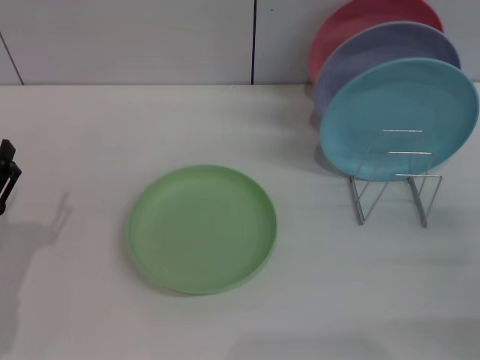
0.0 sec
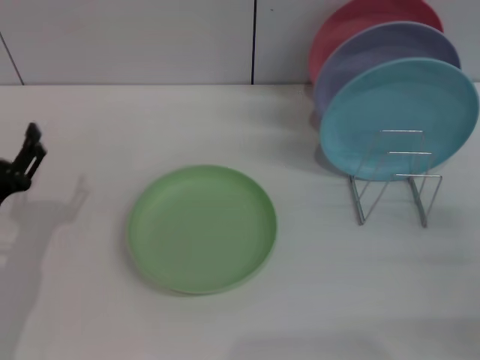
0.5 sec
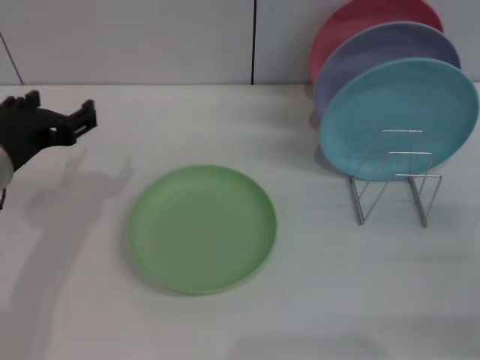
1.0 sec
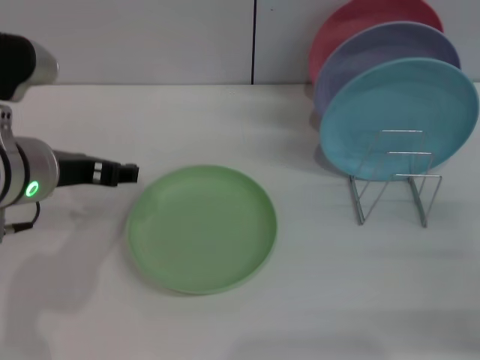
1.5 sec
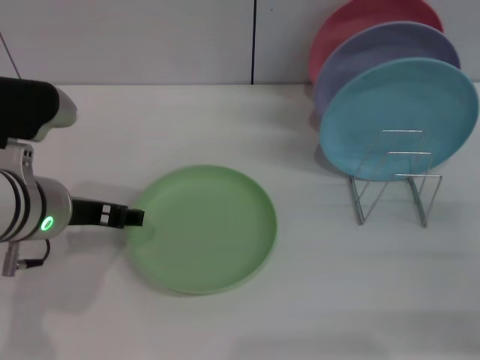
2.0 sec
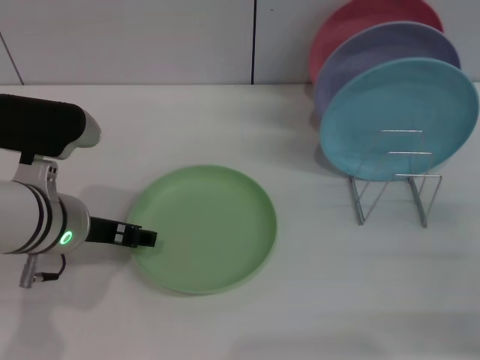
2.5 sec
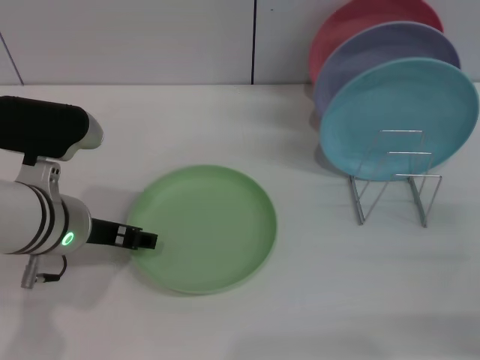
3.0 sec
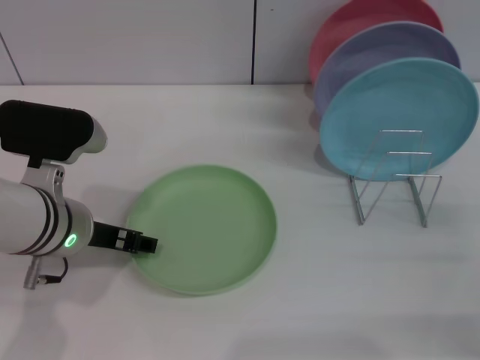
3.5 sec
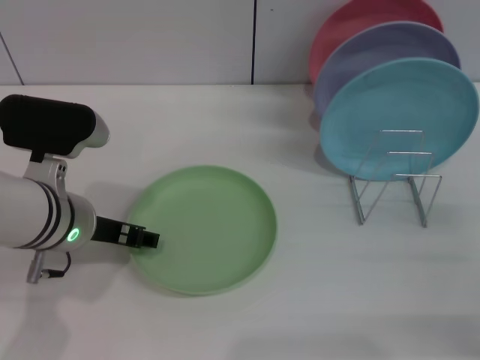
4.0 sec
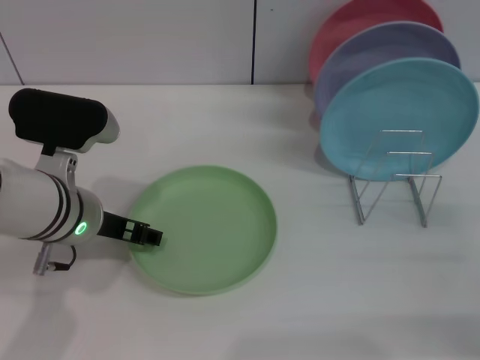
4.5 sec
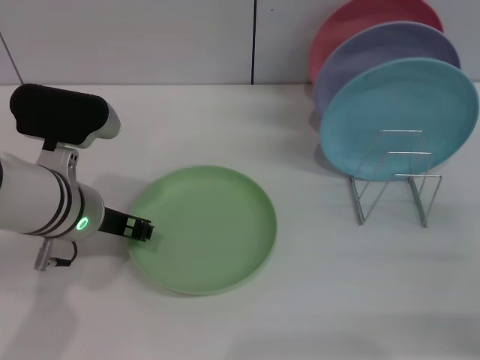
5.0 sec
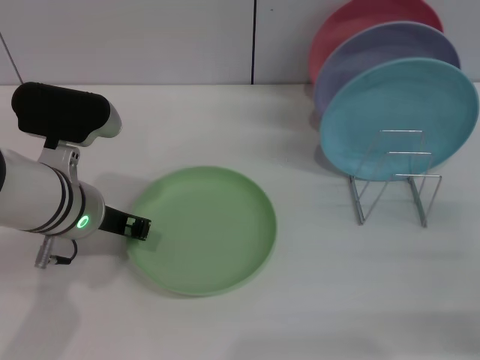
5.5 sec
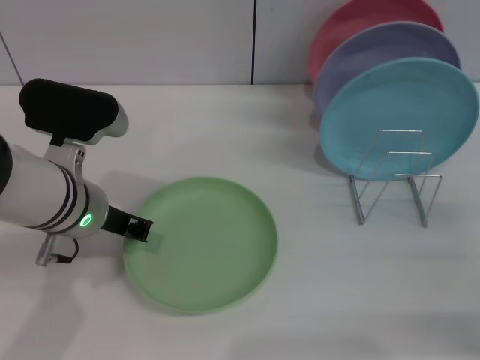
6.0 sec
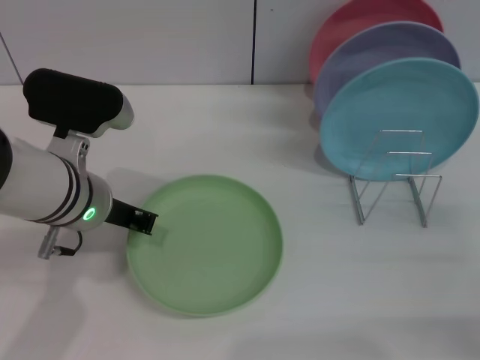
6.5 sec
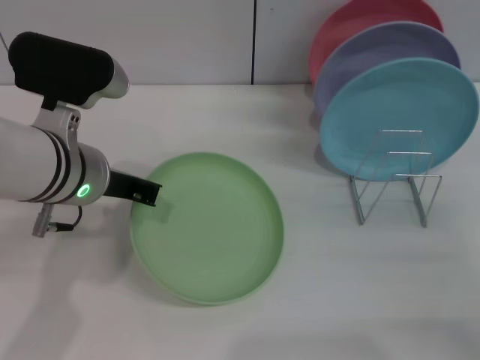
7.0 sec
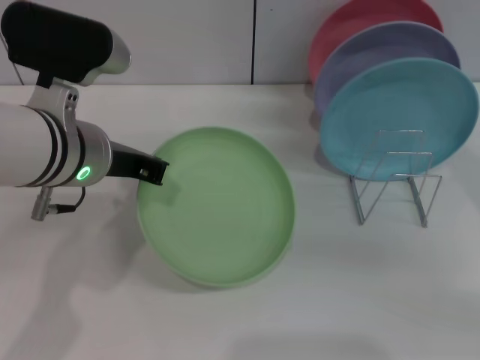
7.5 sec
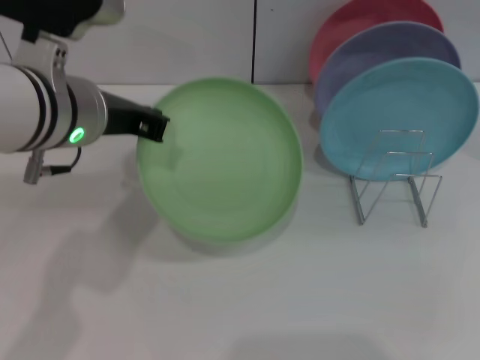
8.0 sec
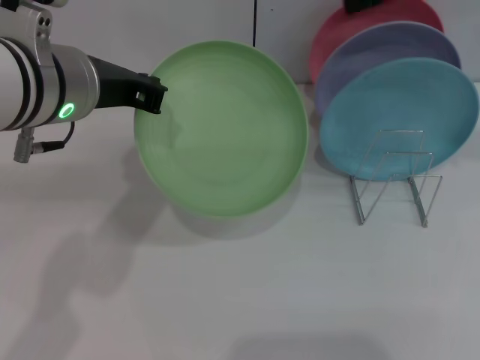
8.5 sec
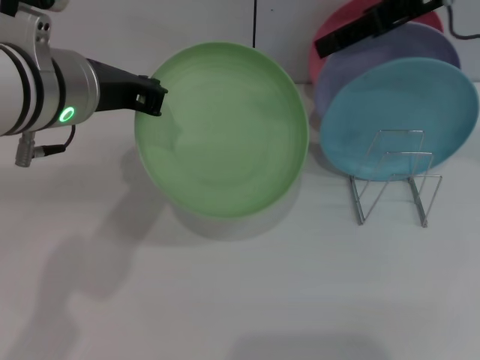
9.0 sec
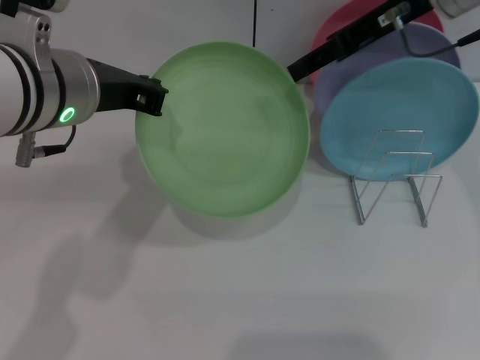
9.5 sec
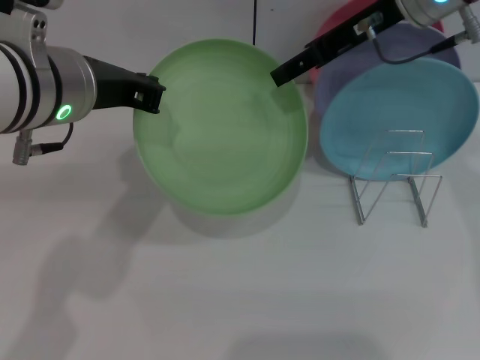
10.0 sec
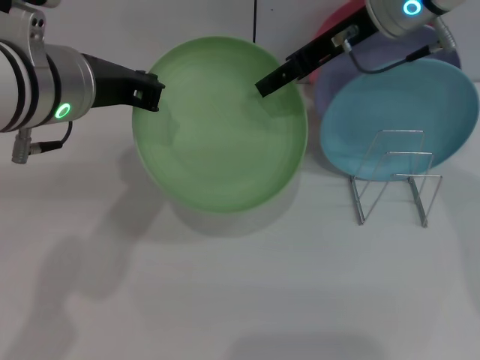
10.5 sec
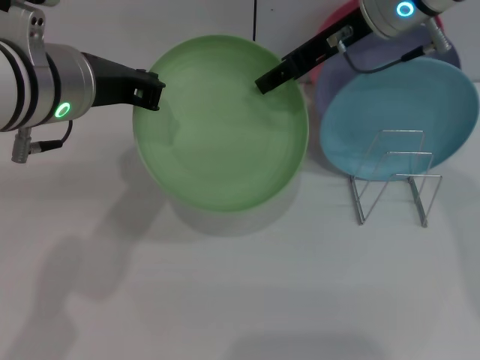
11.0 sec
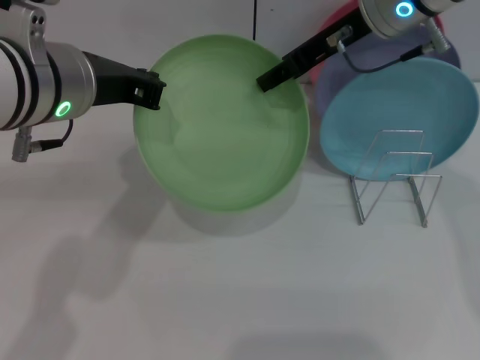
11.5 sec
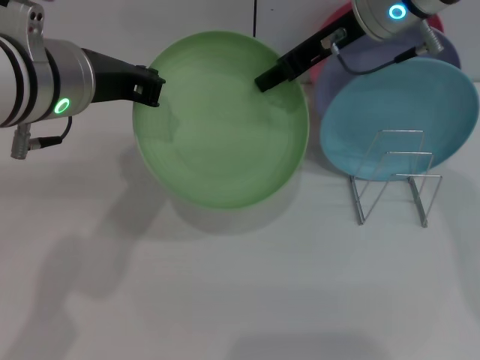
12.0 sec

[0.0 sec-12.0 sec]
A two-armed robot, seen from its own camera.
Task of the whole recording: Grip the plate with one hand, pass it to the other, then set it on the shelf.
Step, 0.0 sec to 7.5 sec: Pick up the plate with the left gripper.
0.0 sec to 2.0 sec: The left gripper heads upward, to the right and forward, covering roughly 15 cm.
2.0 sec to 4.0 sec: The grippers make only small movements.
4.0 sec to 6.0 sec: The left gripper closes.
6.0 sec to 8.0 sec: The left gripper moves upward, about 10 cm. The right gripper travels upward and forward by some 30 cm.
8.0 sec to 10.0 sec: The right gripper heads to the left and downward, covering approximately 15 cm.
10.0 sec to 12.0 sec: The right gripper closes its fingers.

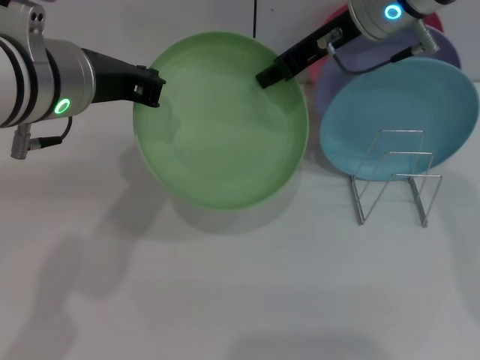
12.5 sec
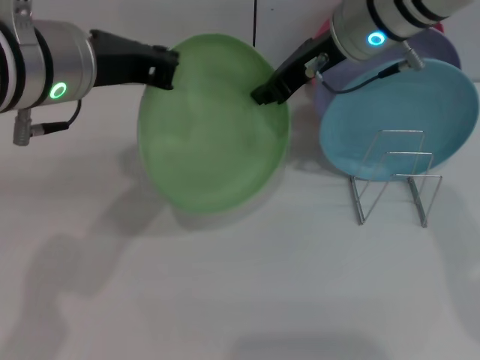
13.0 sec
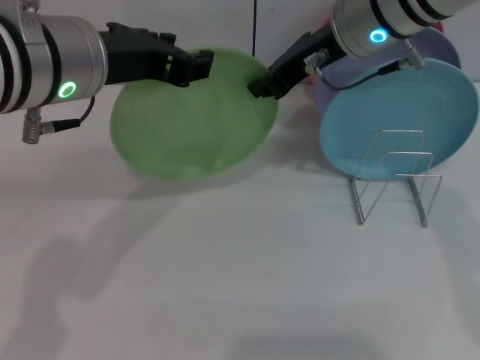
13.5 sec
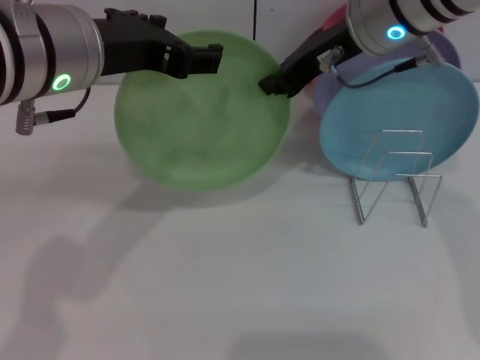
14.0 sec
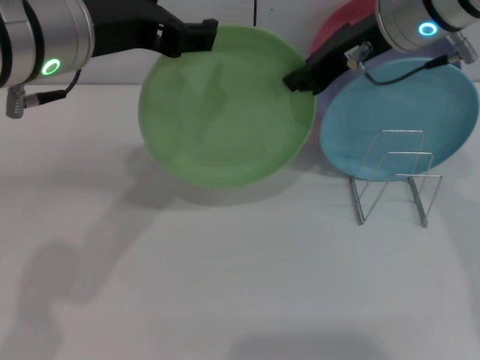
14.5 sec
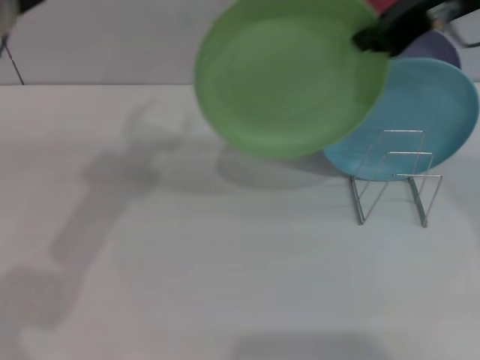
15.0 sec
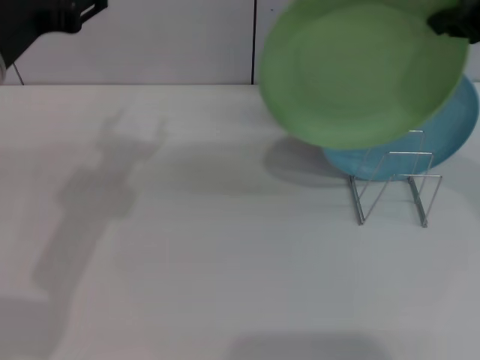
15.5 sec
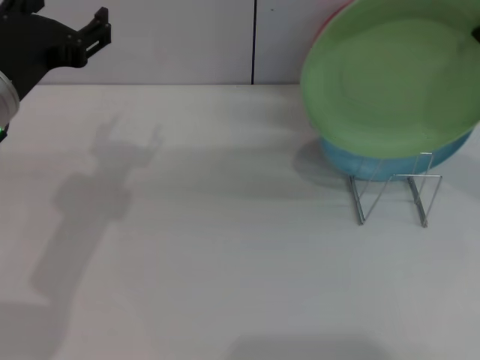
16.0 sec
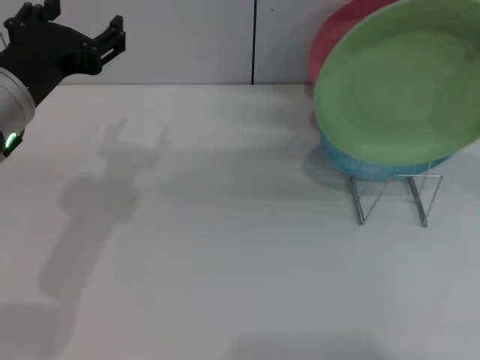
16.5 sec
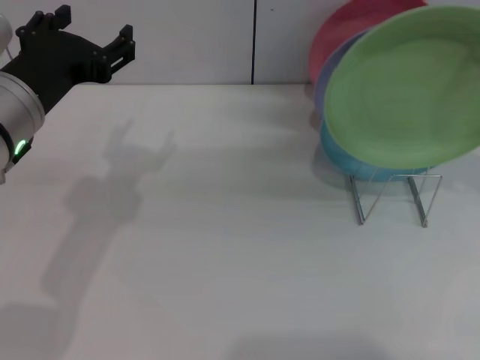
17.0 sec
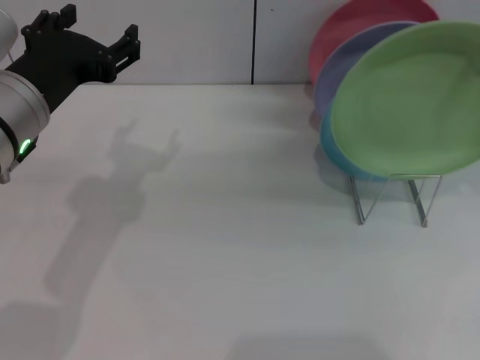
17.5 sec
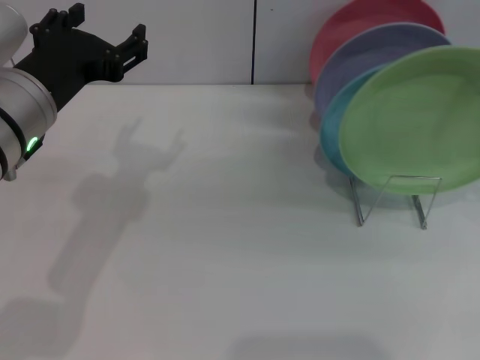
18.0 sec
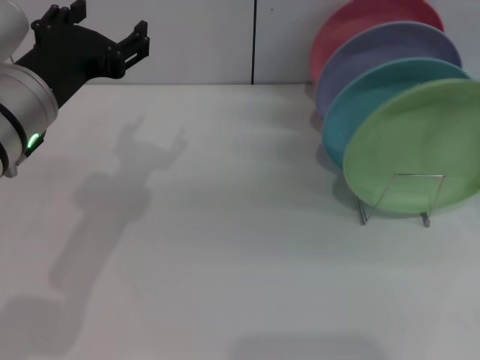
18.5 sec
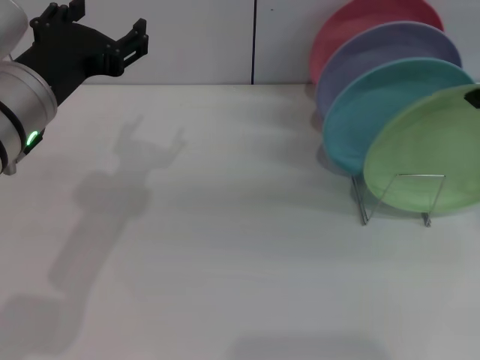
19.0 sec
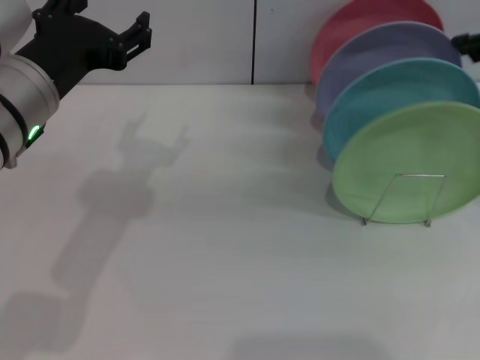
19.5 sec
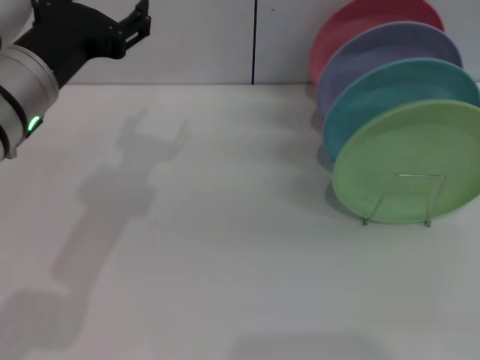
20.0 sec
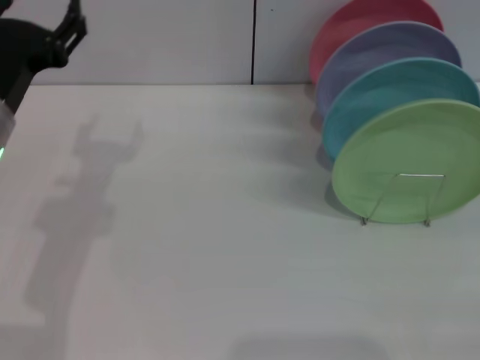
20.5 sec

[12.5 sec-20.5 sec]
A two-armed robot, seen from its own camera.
Task of the whole recording: Grip the plate with one hand, pass it to the other, then set it on the shelf.
Step, 14.5 sec to 19.0 sec: Place the plate on the shelf with the right gripper.
12.5 sec to 14.5 sec: The left gripper opens its fingers.
14.5 sec to 16.5 sec: The right gripper moves to the right, backward and upward, about 15 cm. Meanwhile the left gripper shifts approximately 10 cm downward and to the left.
16.5 sec to 18.5 sec: There are only small adjustments of the grippers.
18.5 sec to 20.5 sec: The left gripper changes place by about 5 cm, while the right gripper goes some 25 cm to the right, downward and backward, and opens up.

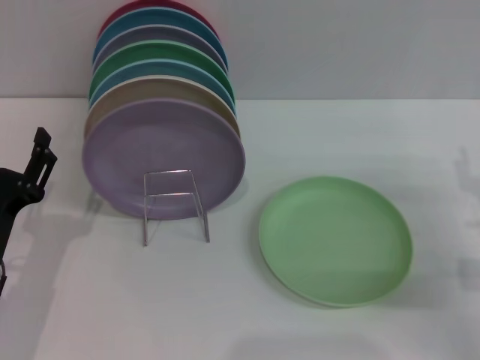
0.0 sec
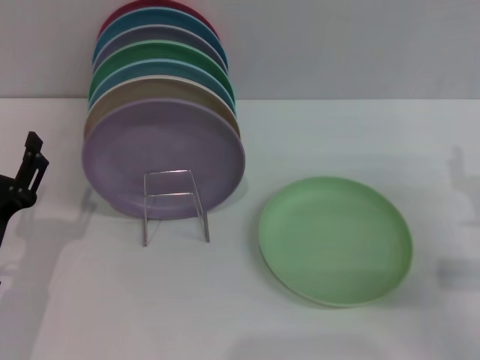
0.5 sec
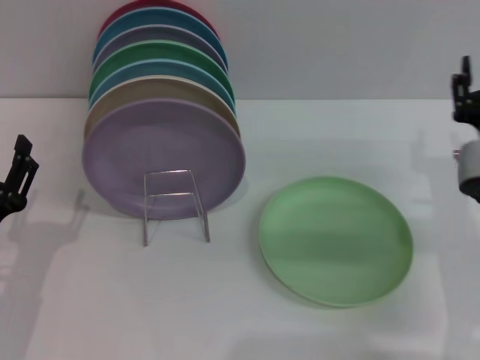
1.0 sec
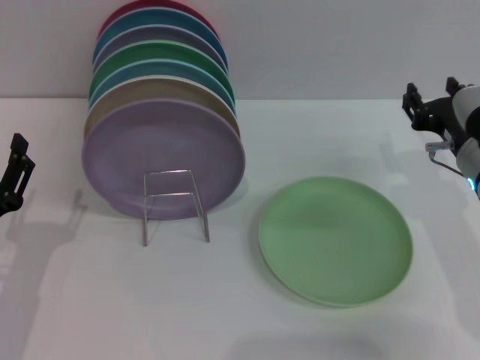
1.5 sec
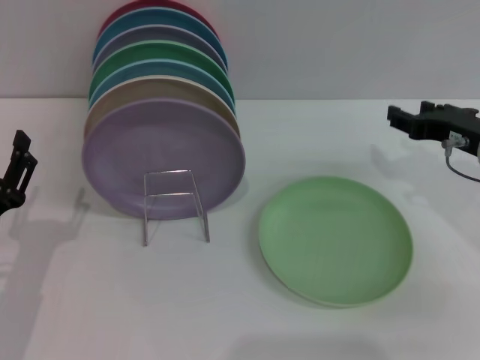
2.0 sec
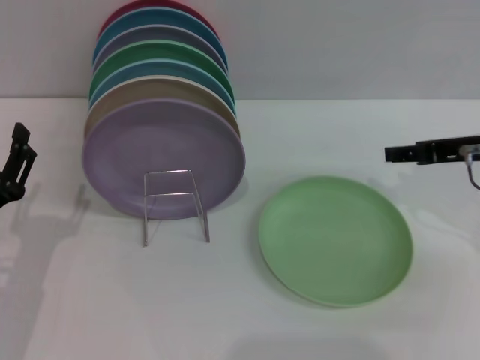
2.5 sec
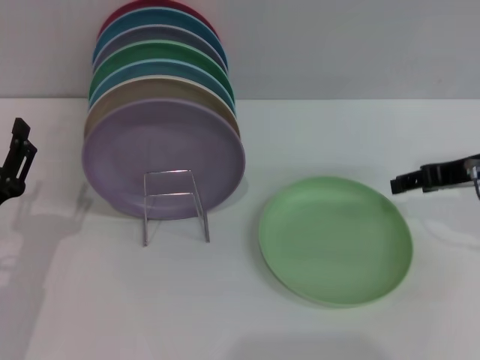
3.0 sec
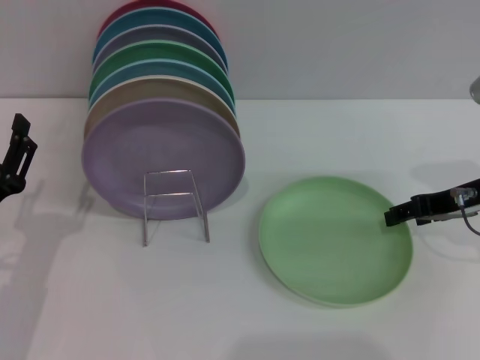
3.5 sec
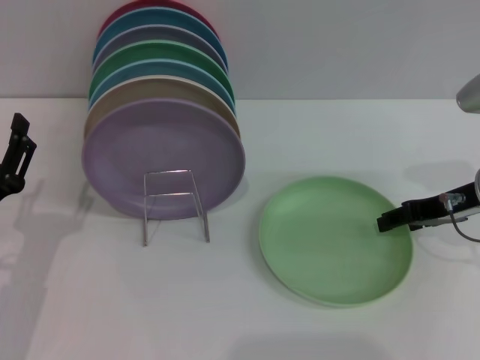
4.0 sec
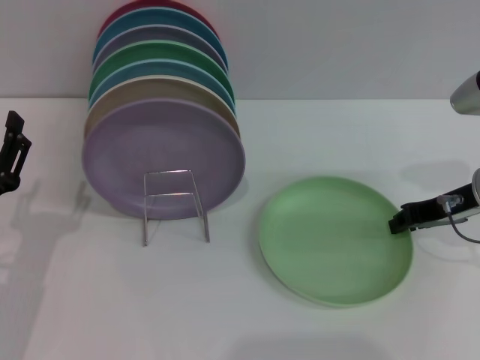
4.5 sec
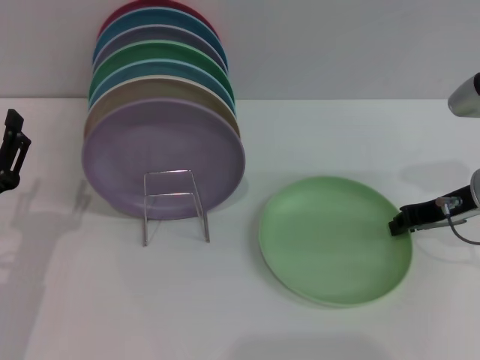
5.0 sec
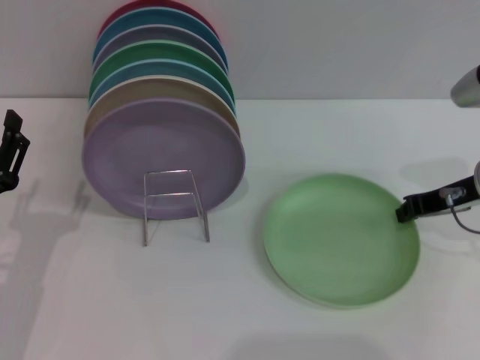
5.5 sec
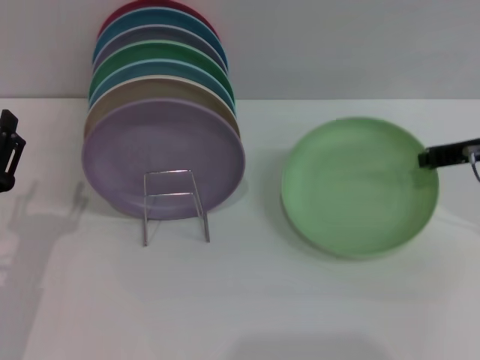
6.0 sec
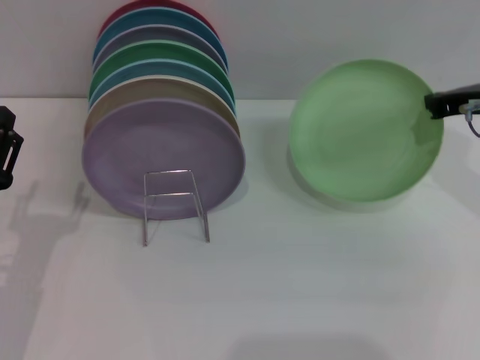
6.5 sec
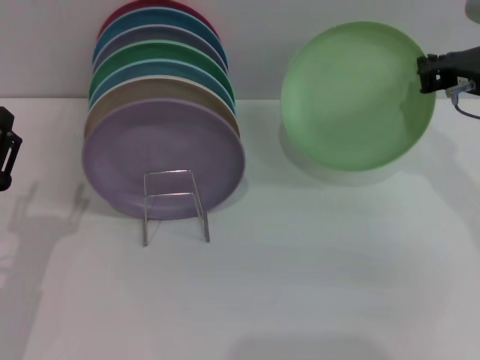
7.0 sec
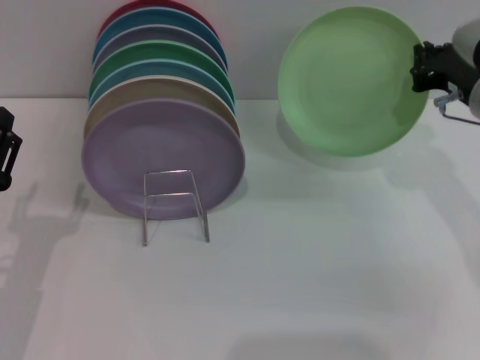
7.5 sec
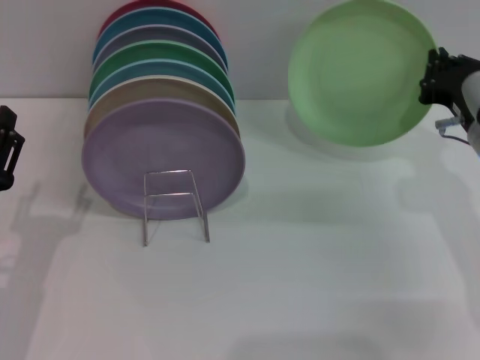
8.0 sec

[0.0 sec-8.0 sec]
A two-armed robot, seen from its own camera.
Task of the whole recording: Grip the plate with one hand, pass it to the other, then set it on the shelf.
Step, 0.0 sec to 6.0 sec: Pick up the plate with the right gripper.
0.0 sec to 2.0 sec: The right gripper shifts some 10 cm forward and upward.
4.0 sec to 6.0 sec: The right gripper closes up.
6.0 sec to 8.0 sec: The right gripper is displaced downward by about 5 cm.
